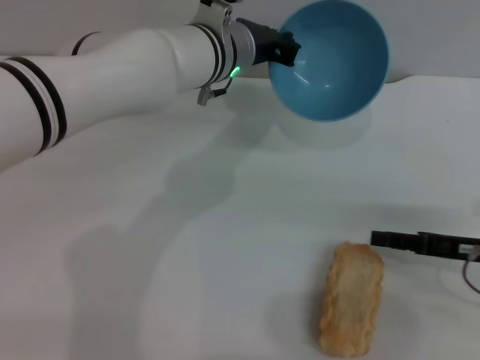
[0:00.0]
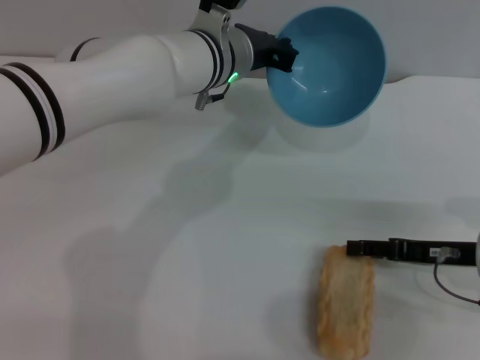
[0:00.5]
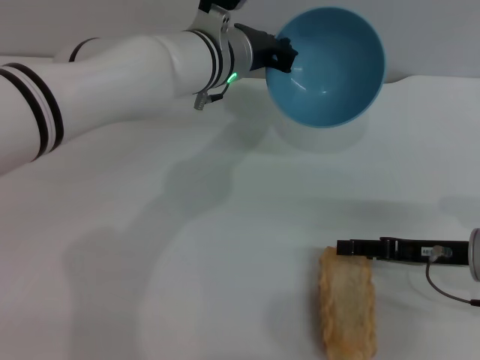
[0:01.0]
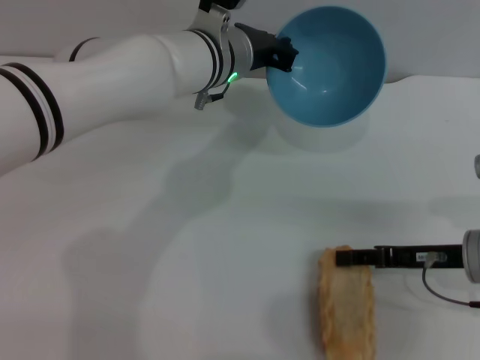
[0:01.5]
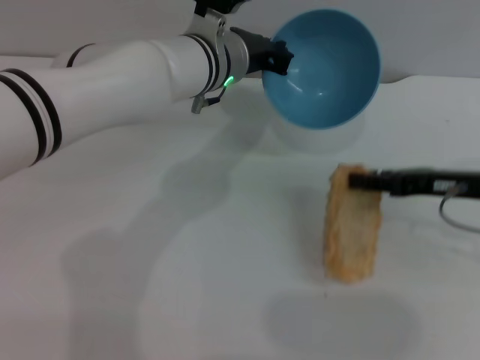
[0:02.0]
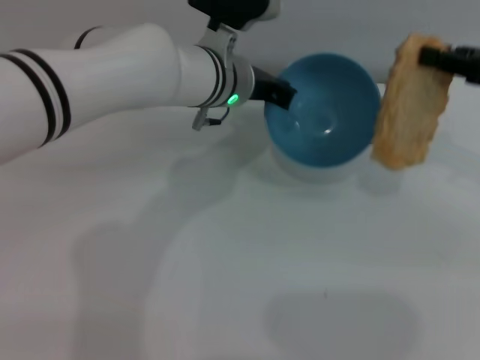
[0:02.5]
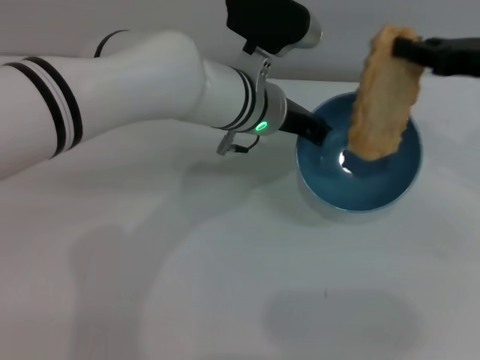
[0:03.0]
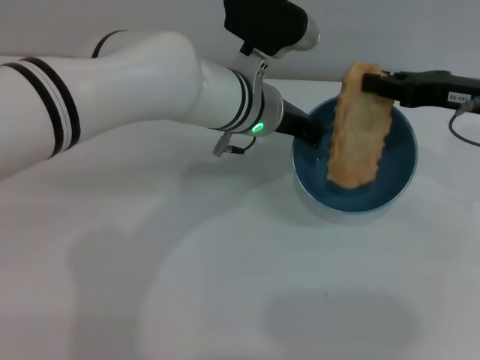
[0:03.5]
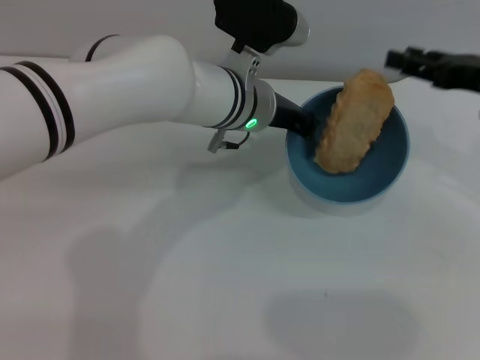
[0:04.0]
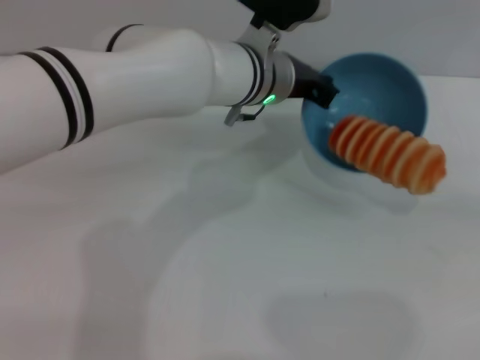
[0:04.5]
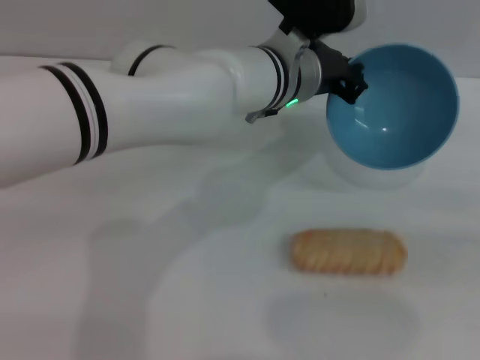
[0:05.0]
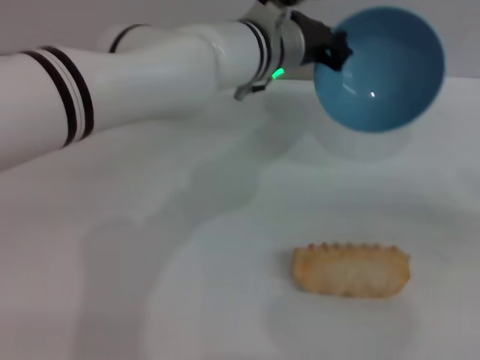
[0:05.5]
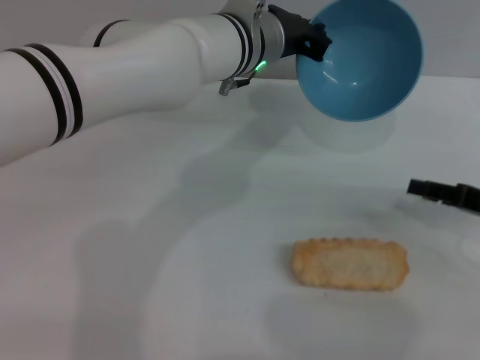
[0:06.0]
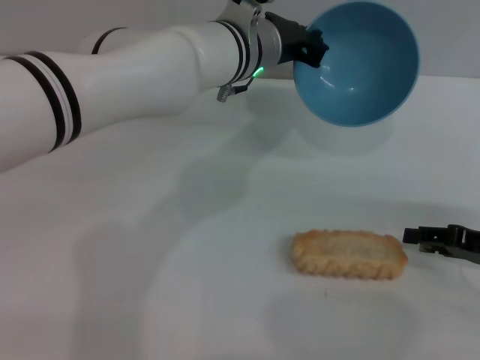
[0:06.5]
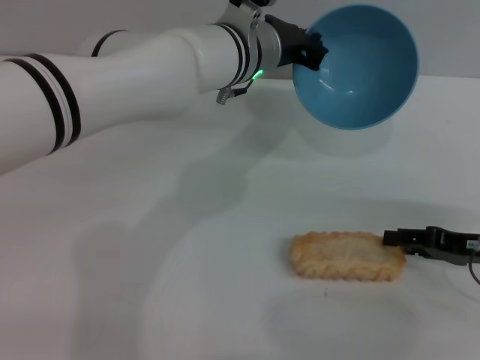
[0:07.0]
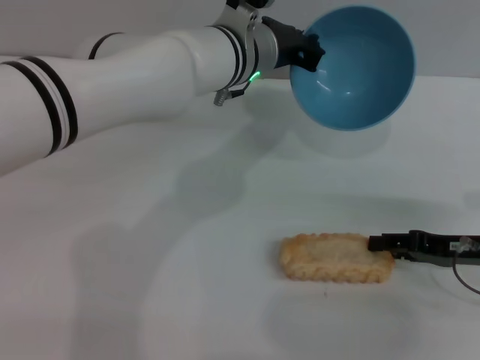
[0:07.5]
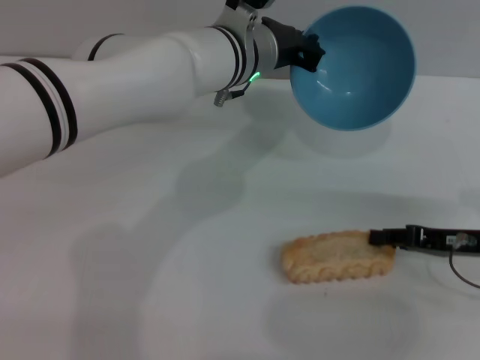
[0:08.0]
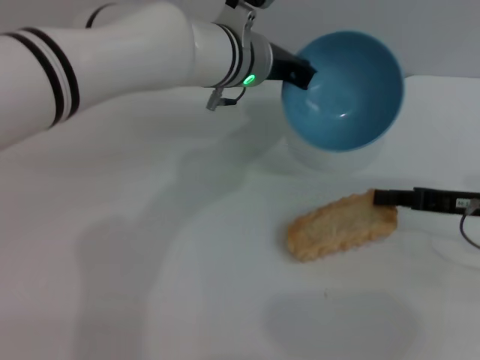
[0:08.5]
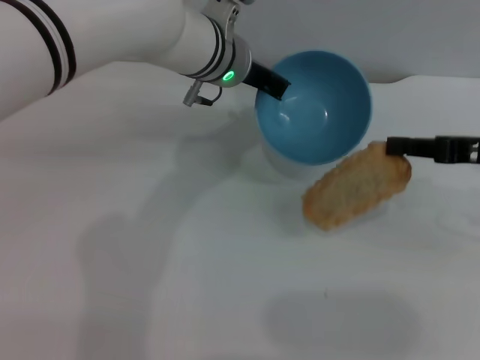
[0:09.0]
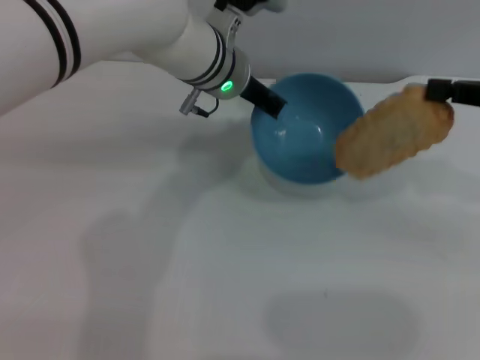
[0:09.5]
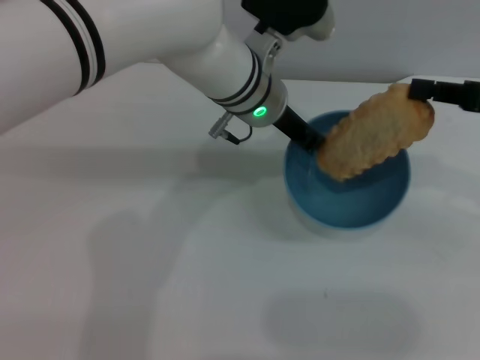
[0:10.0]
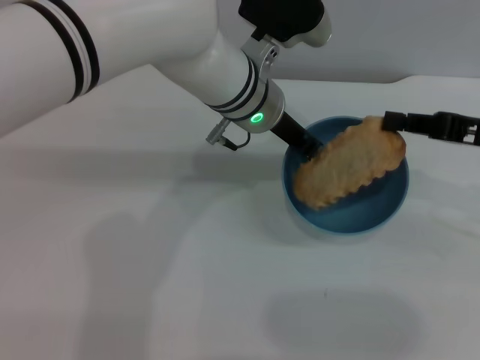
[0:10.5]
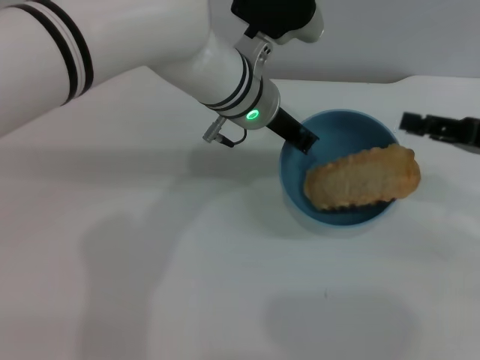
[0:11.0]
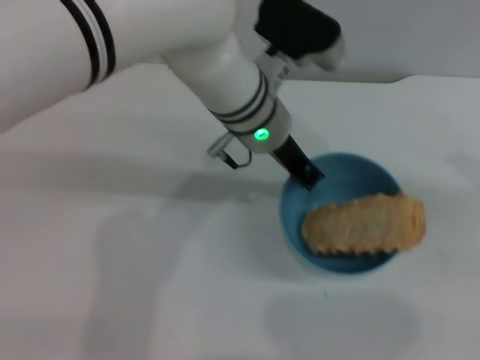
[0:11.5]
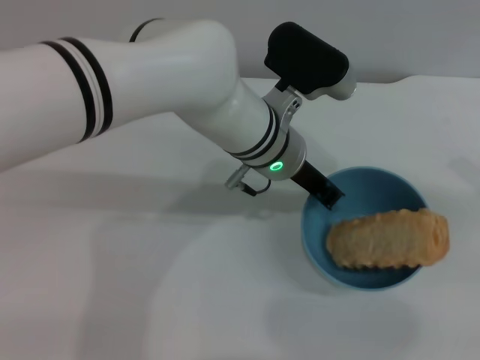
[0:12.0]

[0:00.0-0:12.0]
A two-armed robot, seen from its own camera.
Task of the whole recording: put the bread into the blue bowl and pour it out repeatedly.
Step, 0:00.0 to 0:02.0: Pick up the bread with the right gripper.
Step, 0:02.5 to 0:04.0: Place the bread into the bowl.
Step, 0:04.5 to 0:05.5: Pour the bread out of the bowl.
Step, 0:06.0 to 0:09.0: Pick up the bread with the right gripper.
Step, 0:09.5 to 0:11.0: Place the bread into the bowl.
0:00.0 to 0:02.0: The right gripper shifts some 5 cm forward and upward, and closes up.
0:02.0 to 0:04.0: The right gripper moves upward, roughly 5 cm.
0:04.0 to 0:06.0: The right gripper heads downward and backward, covering approximately 10 cm, and moves approximately 15 cm to the right and comes back.
0:06.0 to 0:08.0: The grippers make only small movements.
0:08.0 to 0:10.0: The right gripper shifts roughly 15 cm upward, and closes up.
0:10.0 to 0:12.0: The right gripper is displaced to the right and backward by approximately 10 cm, and opens up. The left gripper moves roughly 5 cm.

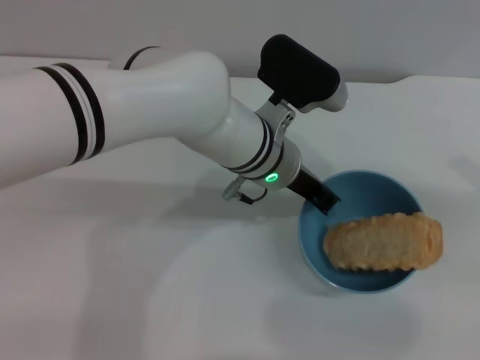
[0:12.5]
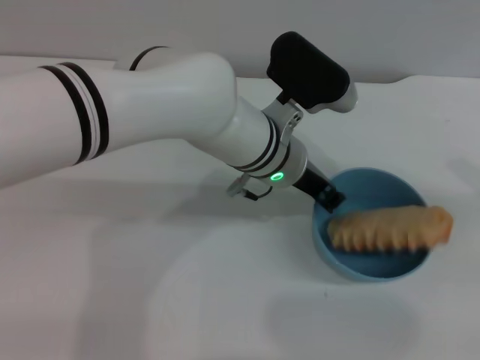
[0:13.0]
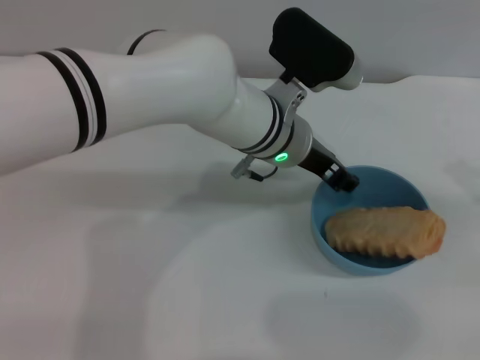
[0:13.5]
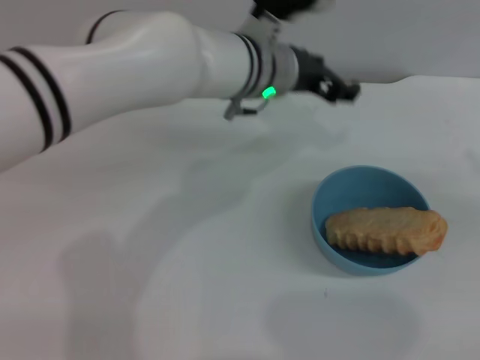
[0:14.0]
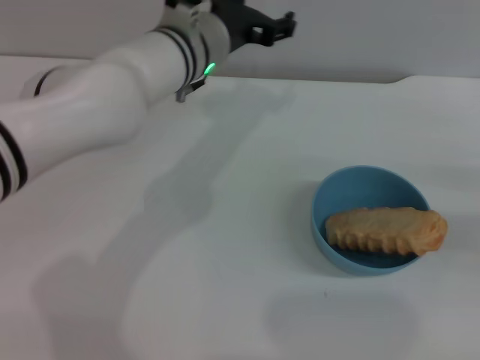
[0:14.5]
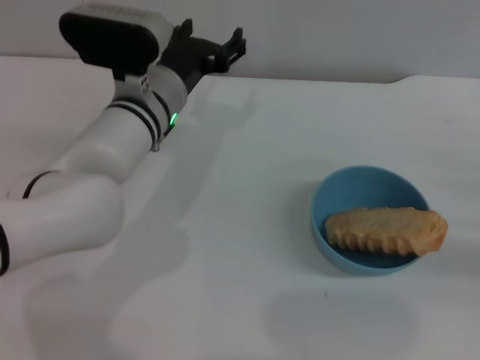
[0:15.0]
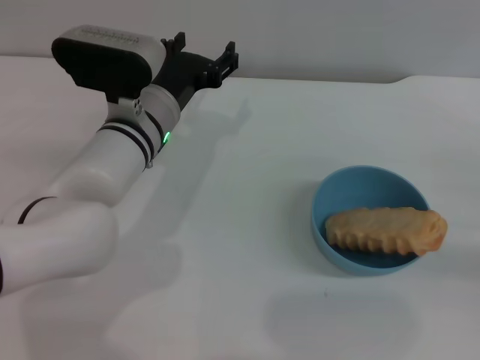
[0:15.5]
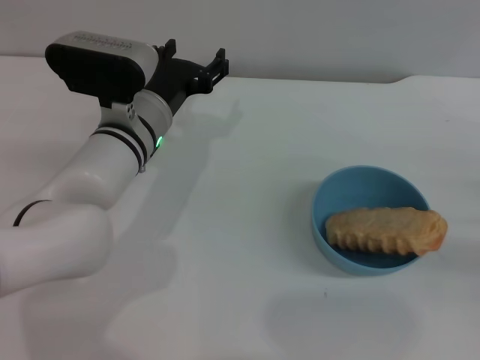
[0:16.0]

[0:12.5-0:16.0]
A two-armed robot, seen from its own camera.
Task of the whole recording: put the bread into the blue bowl and pour it out repeatedly.
Step, 0:12.5 to 0:14.5: Place the bowl on the table.
0:12.5 to 0:14.5: The right gripper travels downward by some 5 cm, while the left gripper shifts roughly 10 cm to the left and forward, and opens its fingers.
0:14.5 to 0:16.0: The left gripper heads downward and backward, covering about 10 cm.
